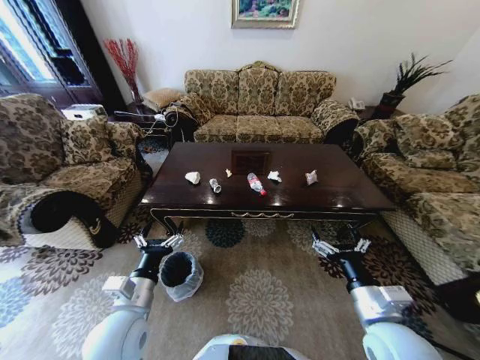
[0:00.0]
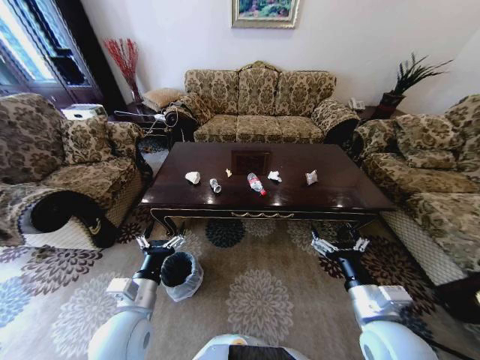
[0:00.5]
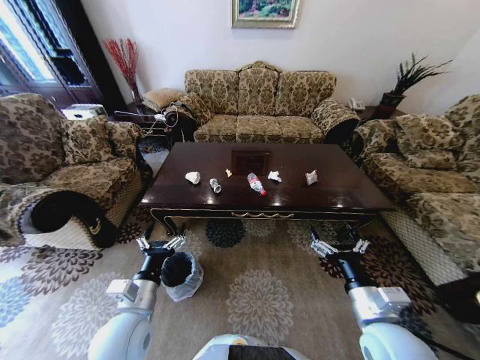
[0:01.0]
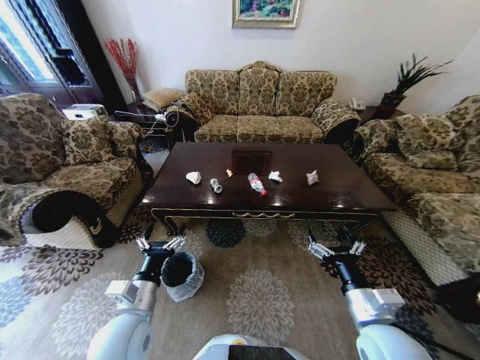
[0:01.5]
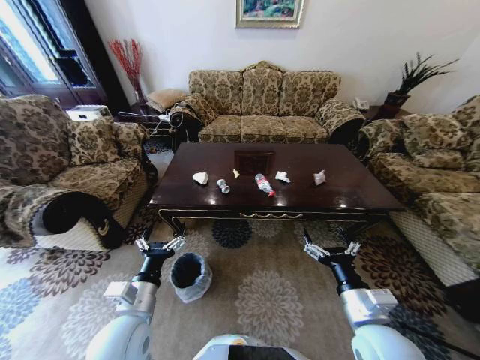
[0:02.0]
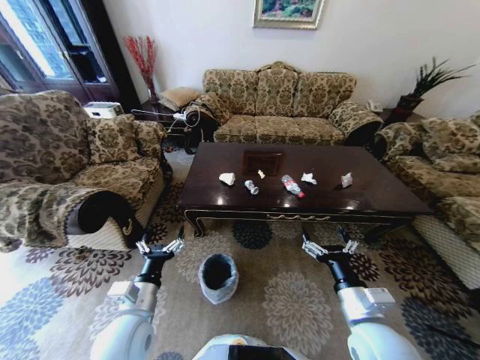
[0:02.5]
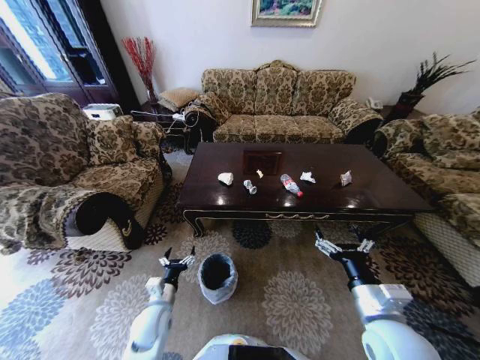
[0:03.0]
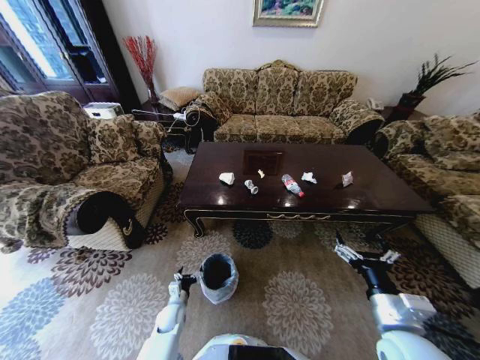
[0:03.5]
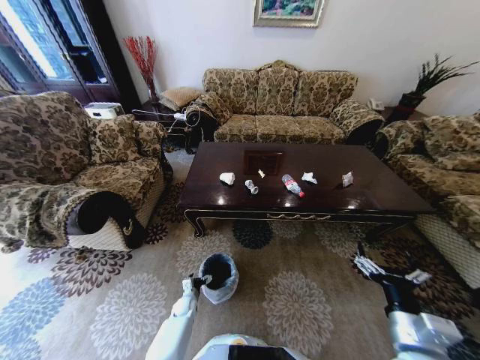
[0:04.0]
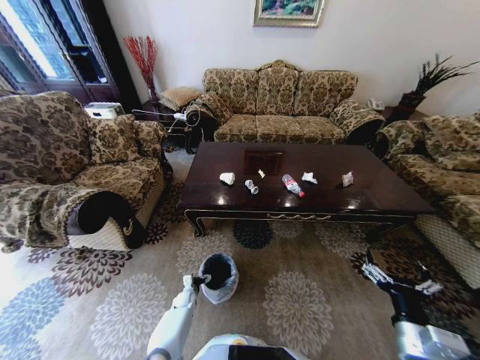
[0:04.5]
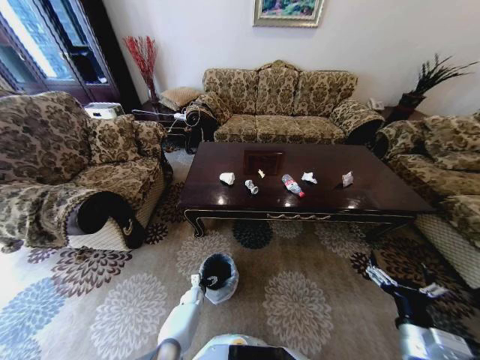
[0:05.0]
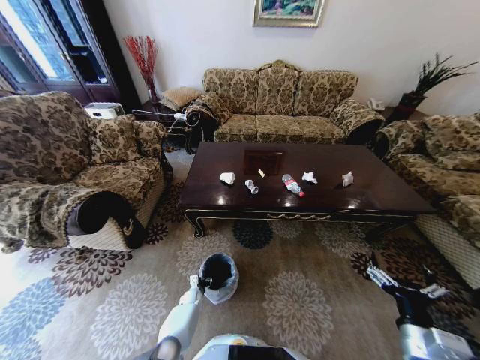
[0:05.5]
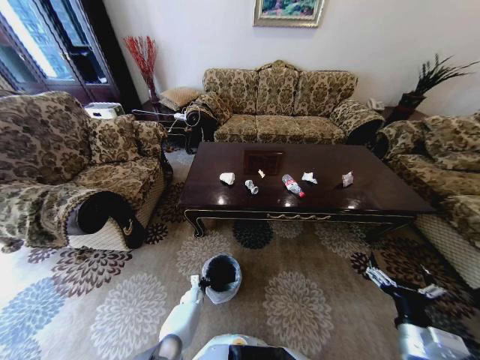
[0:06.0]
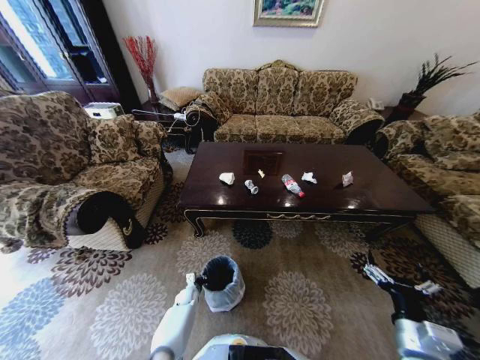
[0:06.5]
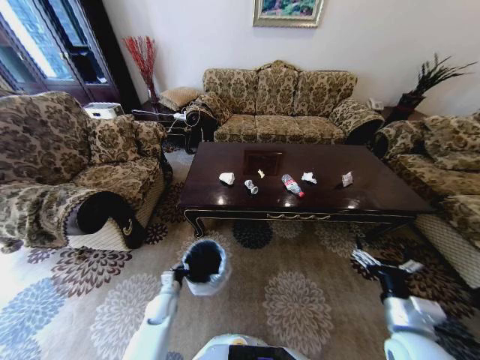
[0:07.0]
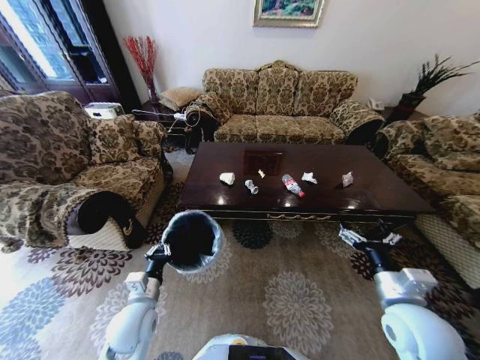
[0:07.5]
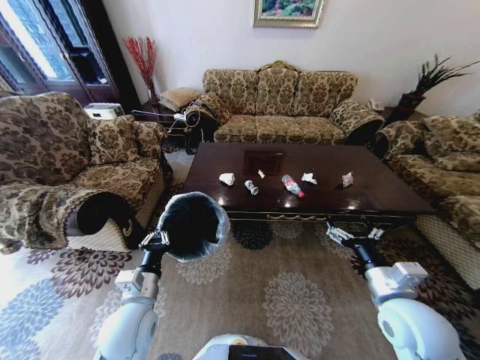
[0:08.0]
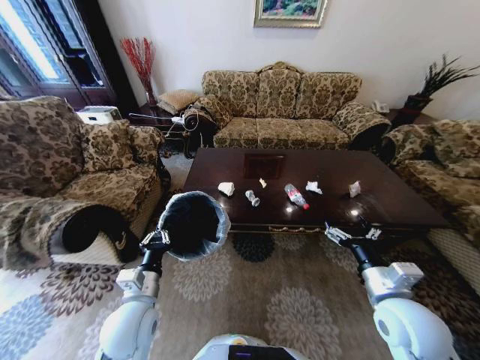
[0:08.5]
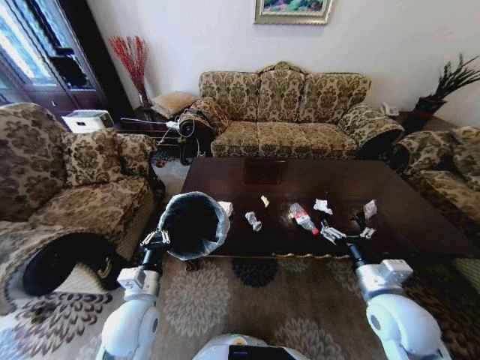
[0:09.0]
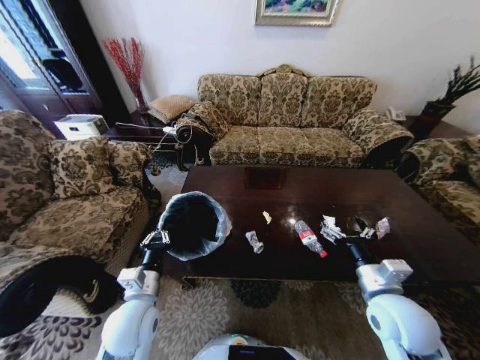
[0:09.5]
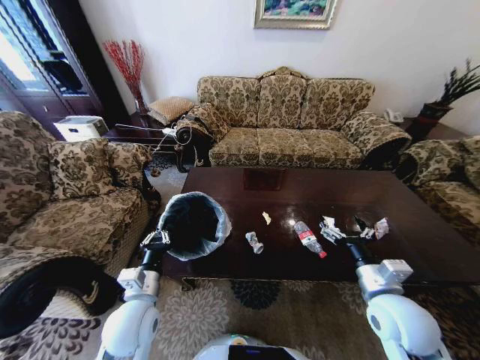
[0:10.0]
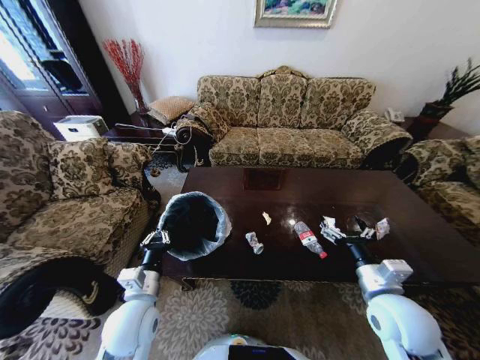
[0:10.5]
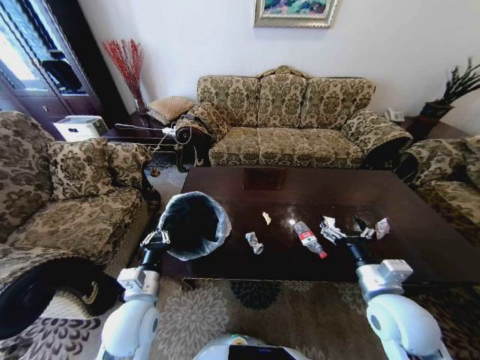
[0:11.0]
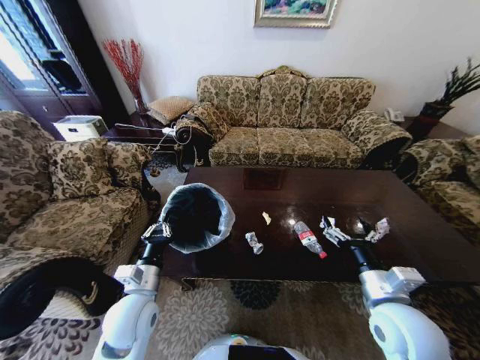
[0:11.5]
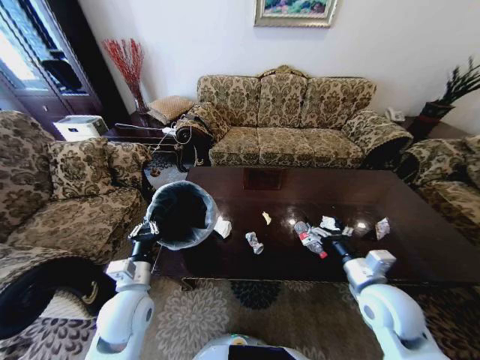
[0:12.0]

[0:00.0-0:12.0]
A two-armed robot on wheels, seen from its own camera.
Task of the whole recording: Move to the front of the table and place the trash on the table into the trash bin.
0:02.0 to 0:04.0: The right gripper travels to the right by about 5 cm. The left gripper goes approximately 40 cm downward.
0:04.0 to 0:06.0: The left gripper ends up roughly 5 cm from where it was, and closes its fingers.
0:06.0 to 0:08.0: The right gripper is displaced forward and upward by about 10 cm, while the left gripper shifts roughly 40 cm upward.
0:10.0 to 0:12.0: The grippers move only a little.

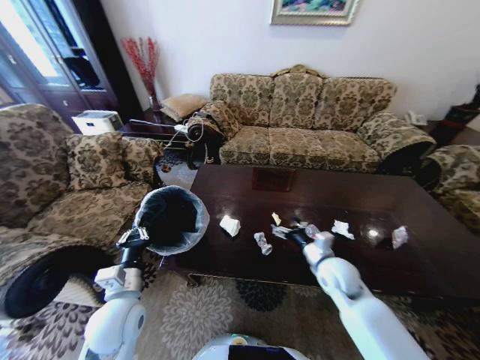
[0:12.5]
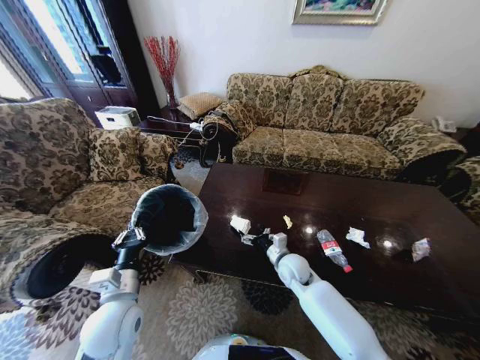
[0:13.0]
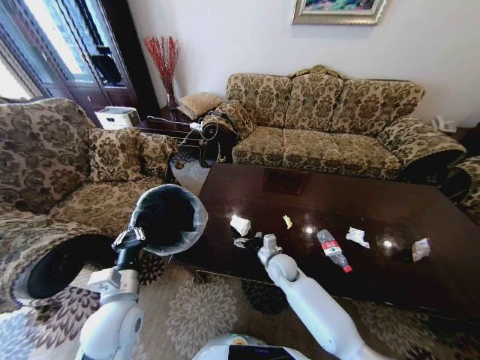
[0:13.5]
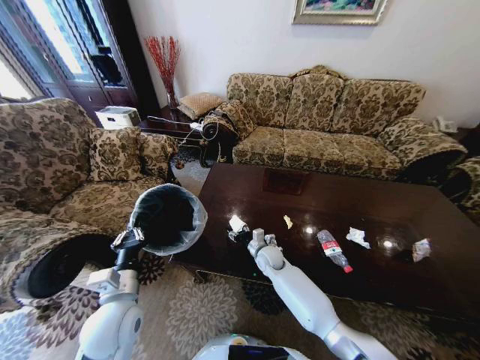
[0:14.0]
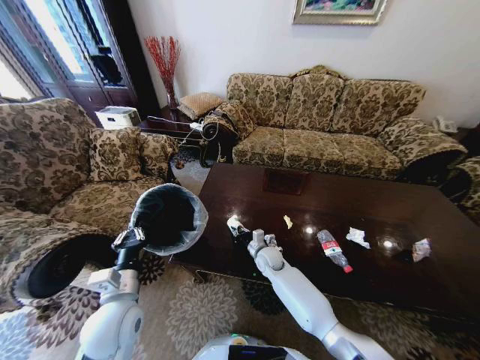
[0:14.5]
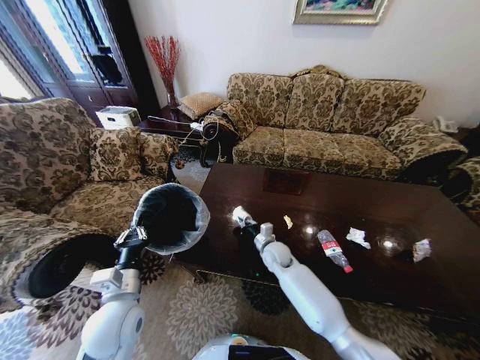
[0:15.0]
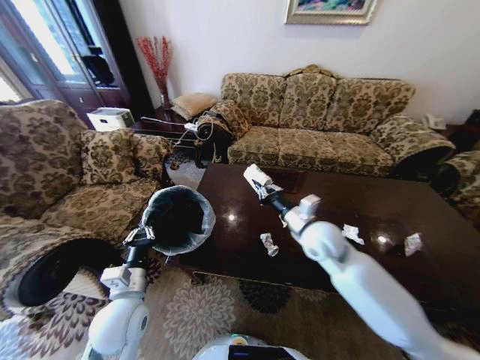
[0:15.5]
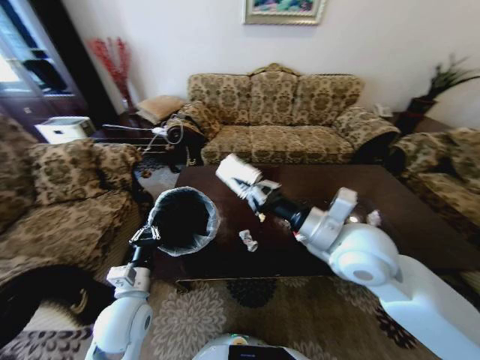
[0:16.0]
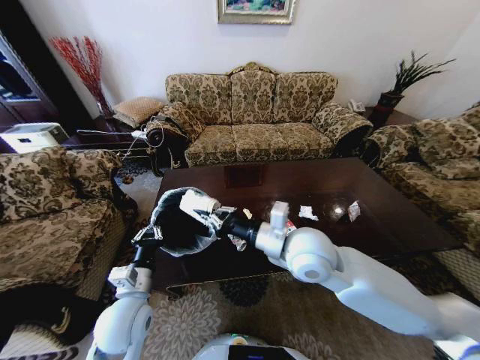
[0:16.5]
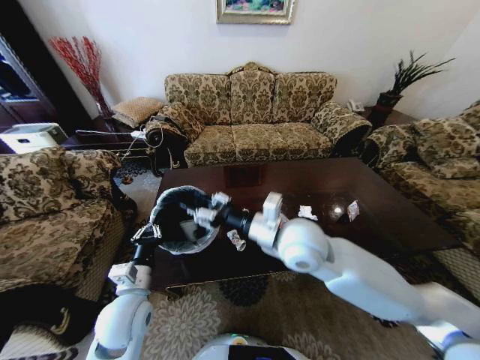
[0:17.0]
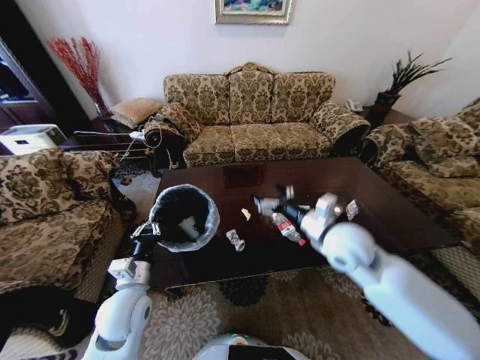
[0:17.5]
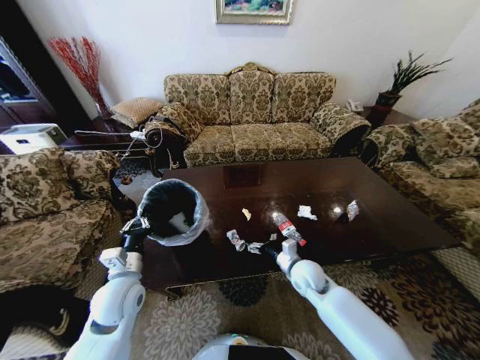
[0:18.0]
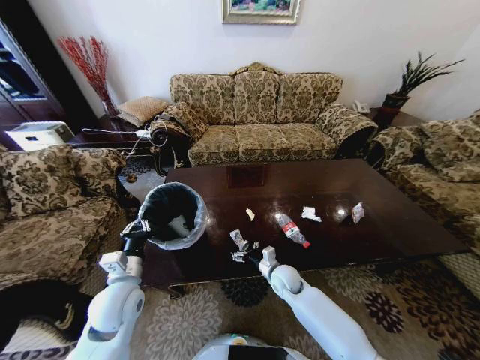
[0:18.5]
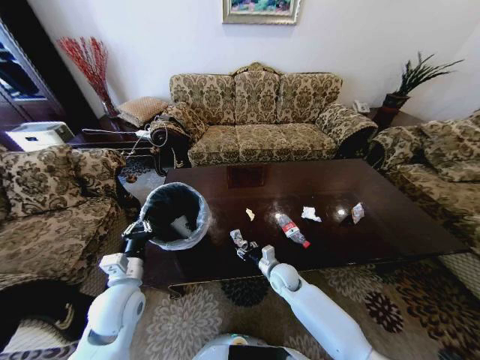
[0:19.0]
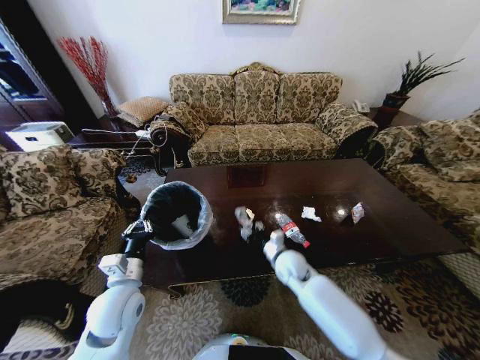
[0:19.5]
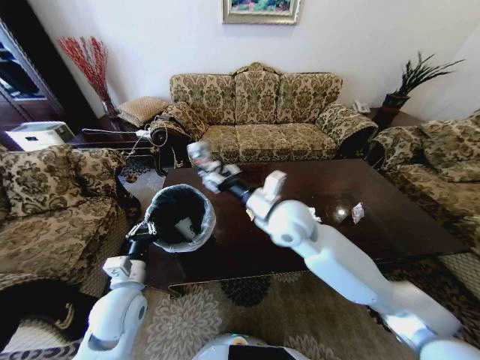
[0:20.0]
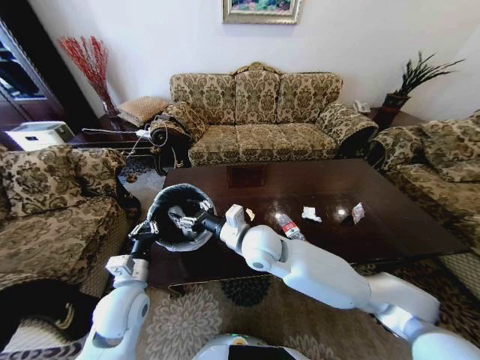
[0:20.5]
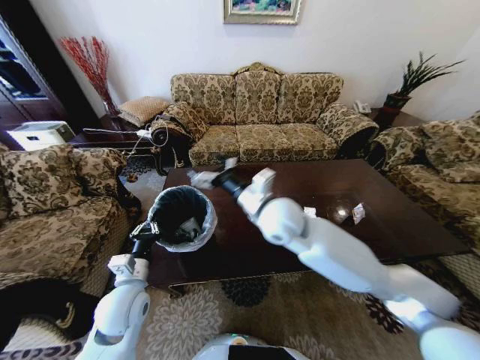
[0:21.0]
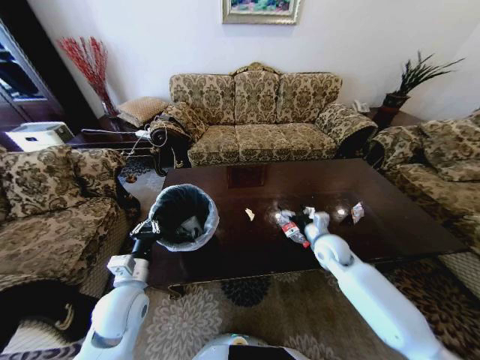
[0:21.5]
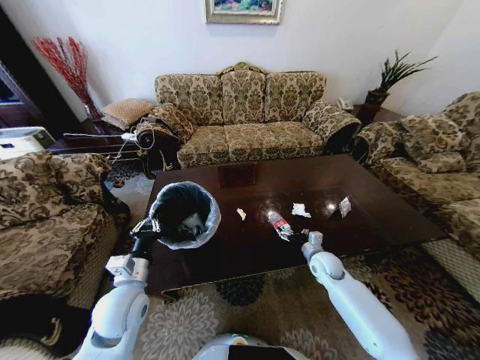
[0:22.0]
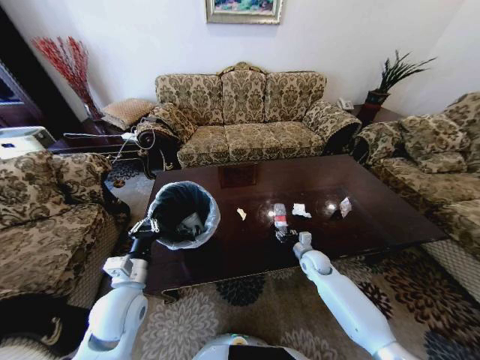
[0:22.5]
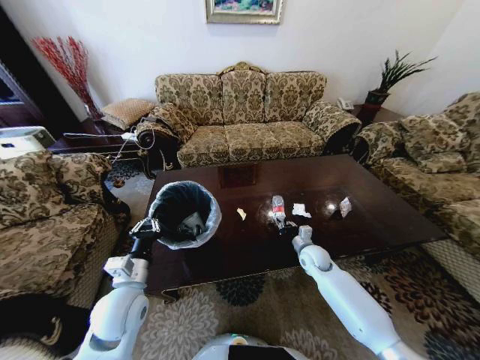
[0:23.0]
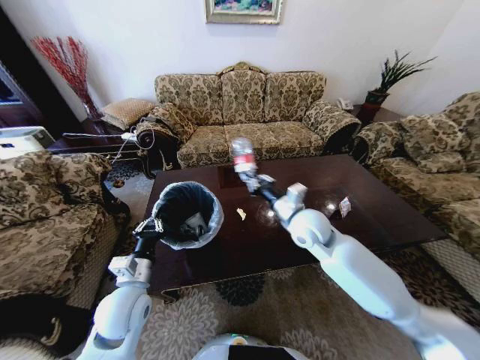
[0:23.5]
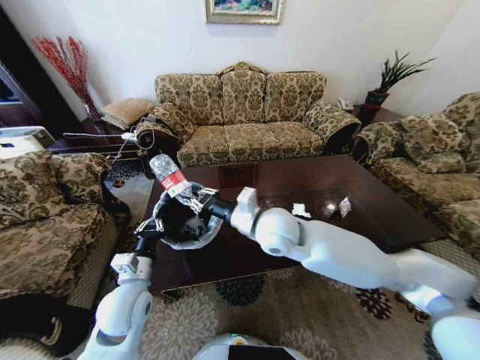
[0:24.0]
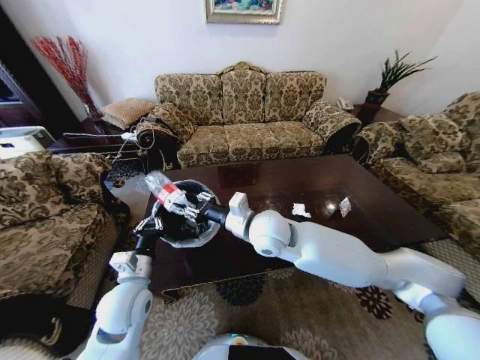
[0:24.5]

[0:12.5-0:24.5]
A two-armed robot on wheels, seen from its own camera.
Task of the whole recording: Move to the front of the table and place the trash on the table into the trash bin.
0:12.5 to 0:14.5: The right gripper travels to the left, downward and forward by approximately 20 cm, and closes its fingers.
0:14.5 to 0:16.5: The right gripper travels upward and backward by some 30 cm.
0:16.5 to 0:18.5: The right gripper goes about 30 cm downward, and opens up.
0:18.5 to 0:20.5: The right gripper travels upward and to the left by roughly 25 cm, and closes its fingers.
0:20.5 to 0:22.5: The right gripper moves downward and to the right, roughly 35 cm, and opens and closes again.
0:22.5 to 0:24.5: The right gripper goes about 35 cm upward and to the left.

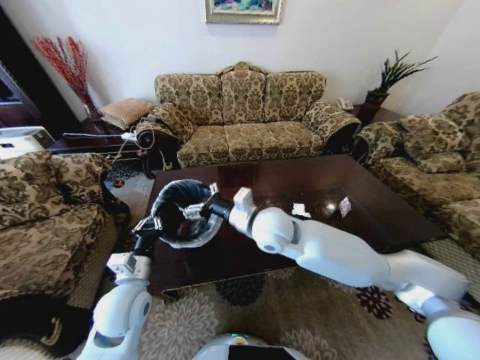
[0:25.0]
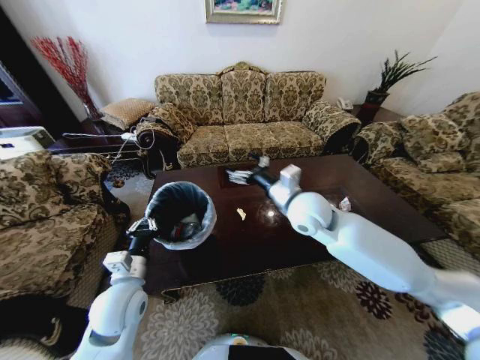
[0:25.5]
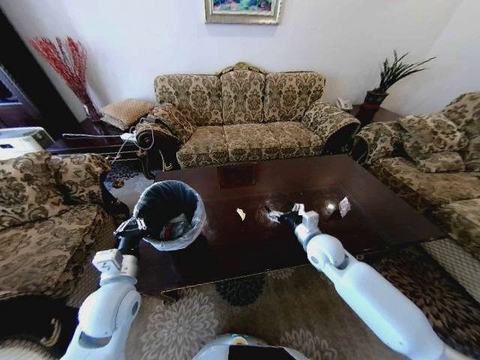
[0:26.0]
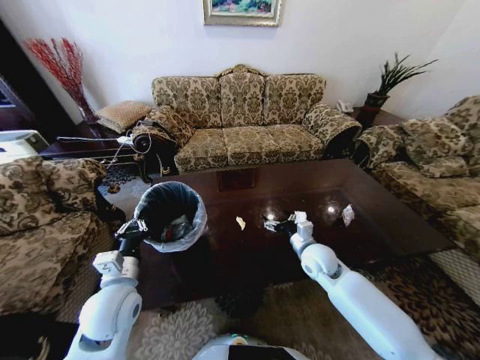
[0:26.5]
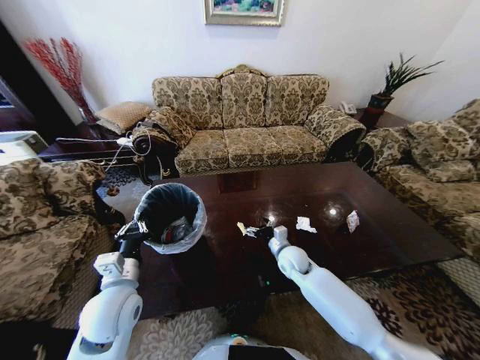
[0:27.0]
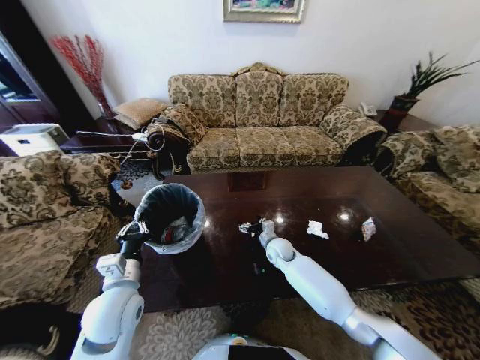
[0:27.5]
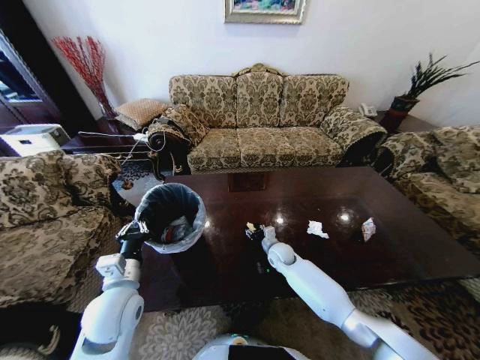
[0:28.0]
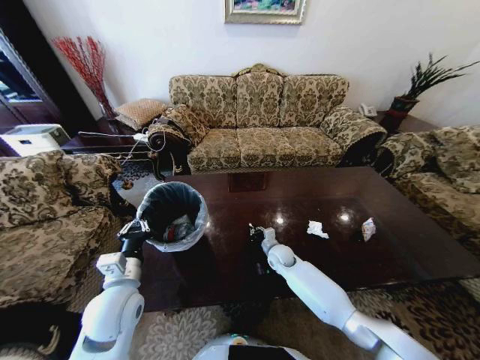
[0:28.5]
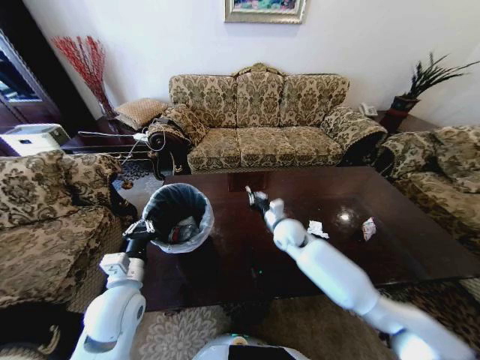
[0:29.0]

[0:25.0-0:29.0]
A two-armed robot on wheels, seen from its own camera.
Task of the whole recording: Move to the front of the table and place the trash on the table into the trash bin.
0:25.0 to 0:27.0: The right gripper is displaced downward and to the right by some 25 cm.
0:27.0 to 0:29.0: The right gripper is displaced upward by some 10 cm, and closes.
